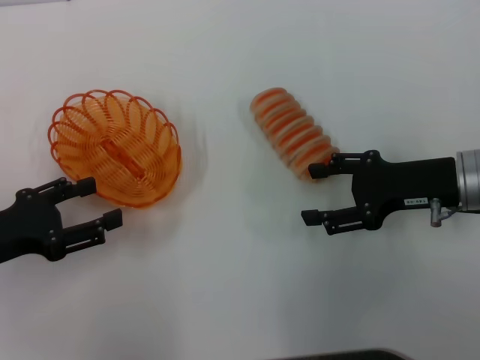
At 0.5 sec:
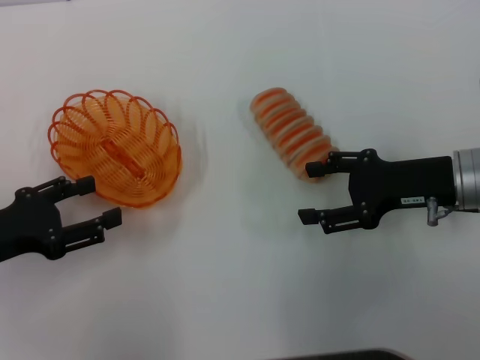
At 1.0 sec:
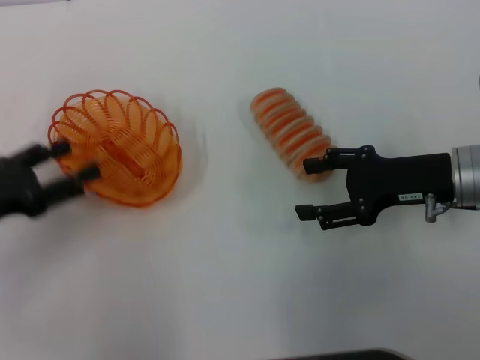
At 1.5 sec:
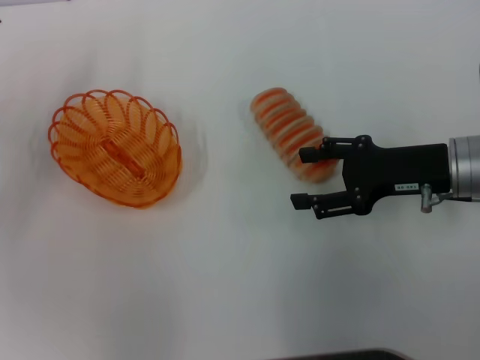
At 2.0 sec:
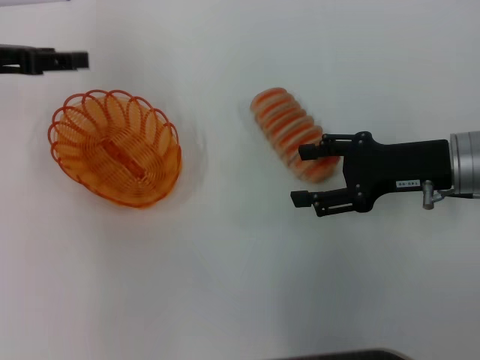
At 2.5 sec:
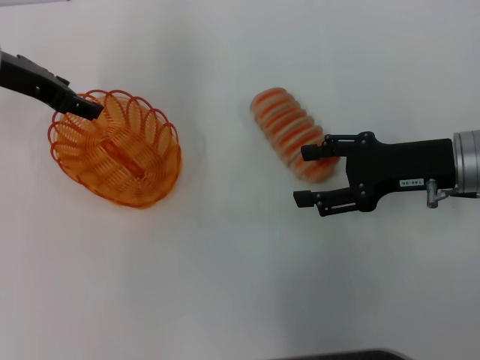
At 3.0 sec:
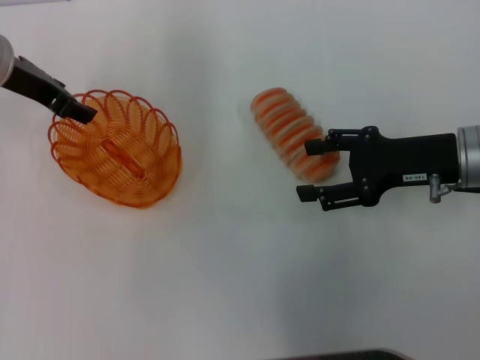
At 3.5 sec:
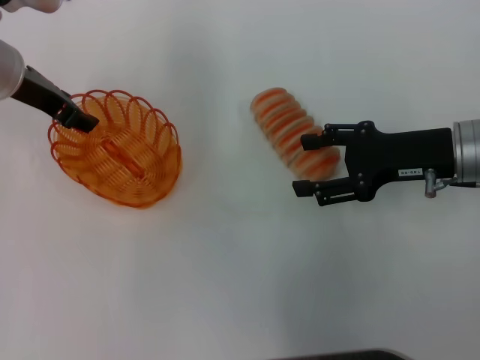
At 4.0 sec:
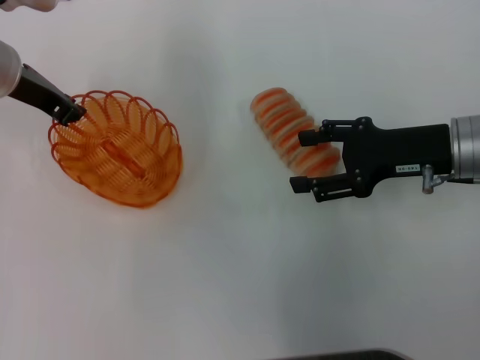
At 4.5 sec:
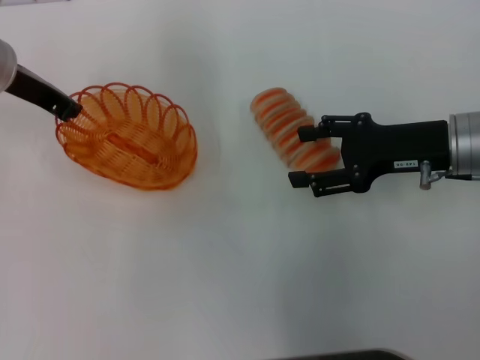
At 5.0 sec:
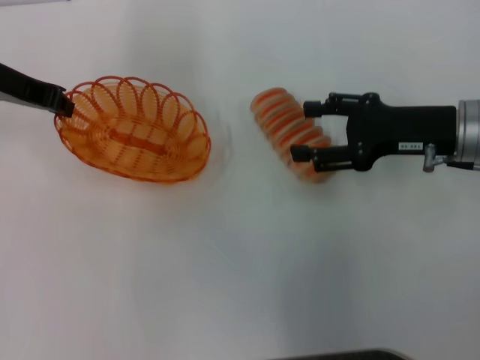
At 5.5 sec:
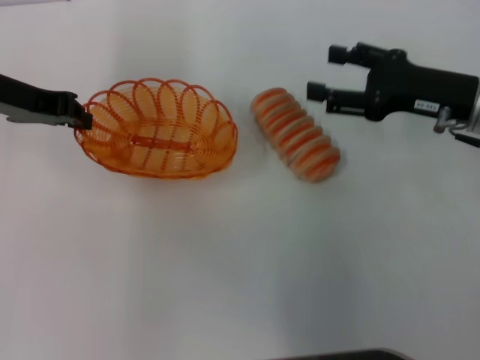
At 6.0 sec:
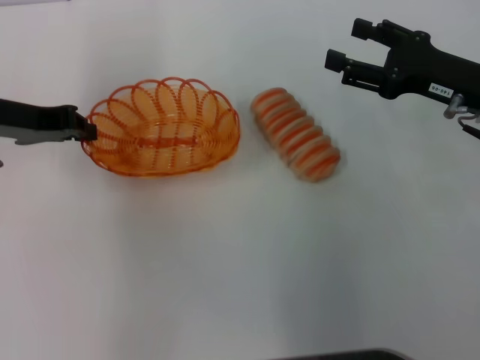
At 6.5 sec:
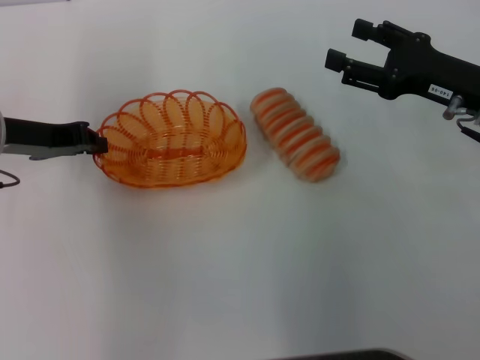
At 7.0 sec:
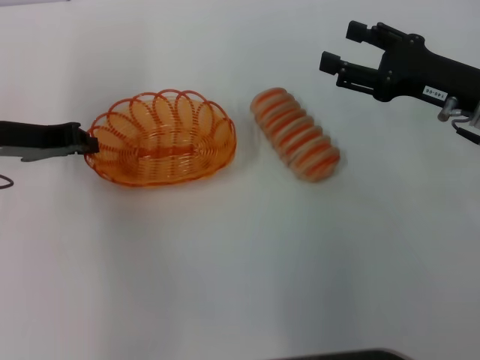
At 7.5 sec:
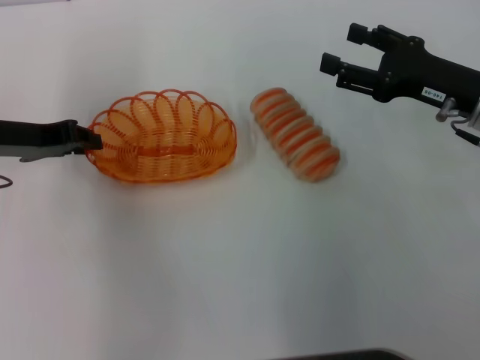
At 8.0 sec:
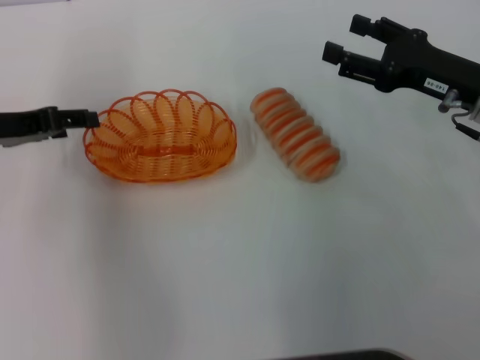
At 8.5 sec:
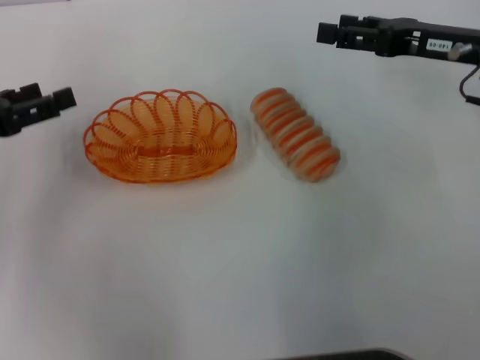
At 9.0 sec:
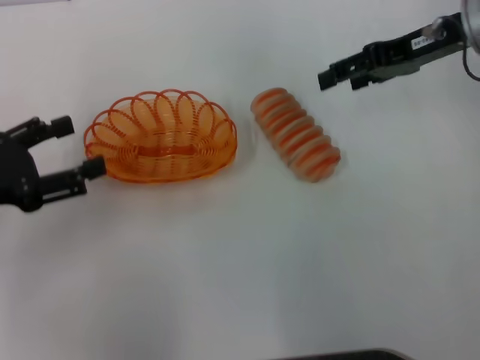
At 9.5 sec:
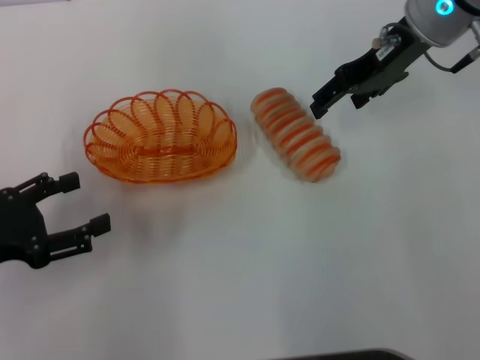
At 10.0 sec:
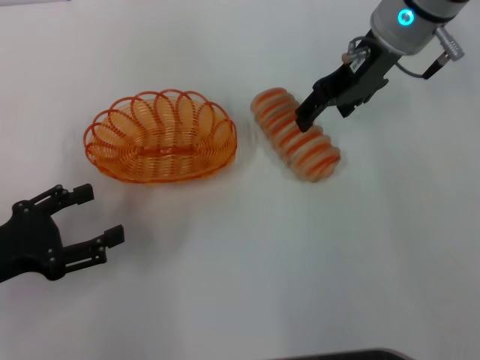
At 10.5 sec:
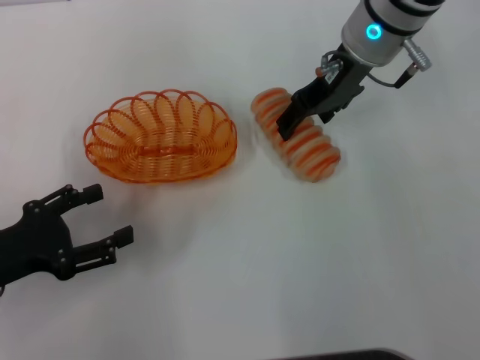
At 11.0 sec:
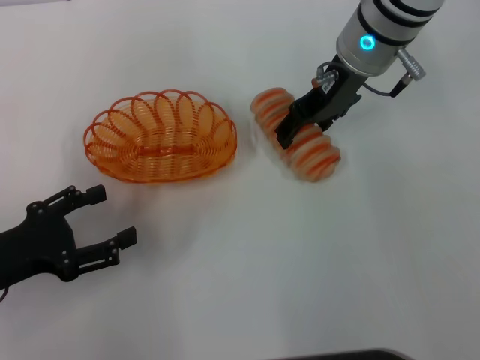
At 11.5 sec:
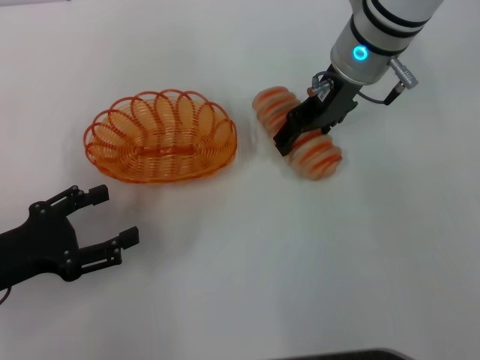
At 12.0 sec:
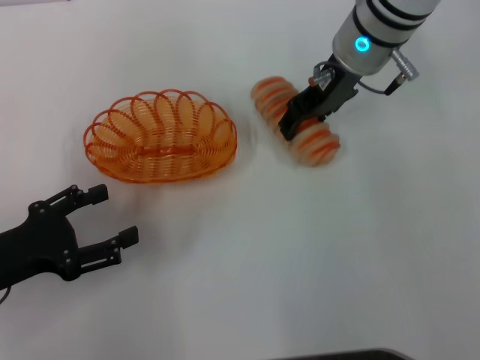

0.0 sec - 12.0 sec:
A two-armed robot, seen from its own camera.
Step, 0.0 sec - 4.5 sec: Pick up the basket with the left gripper.
Step, 5.0 sec - 8.0 sec: Place the basket in the center of view with the left gripper.
Step, 8.5 sec - 11.5 sec: Pick up the long bread with the right gripper.
0.0 sec - 2.0 sec: The left gripper travels forward and upward by approximately 20 cm.
2.0 sec - 4.0 sec: The left gripper is displaced to the right by about 5 cm, and closes.
4.0 sec - 6.0 sec: The left gripper heads backward, covering roughly 5 cm.
6.0 sec - 8.0 sec: The left gripper opens.
8.0 sec - 10.0 sec: The left gripper moves backward and downward, some 15 cm, and opens up. Meanwhile the right gripper is displaced to the left, forward and upward by about 15 cm.
10.0 sec - 12.0 sec: The grippers make only small movements.

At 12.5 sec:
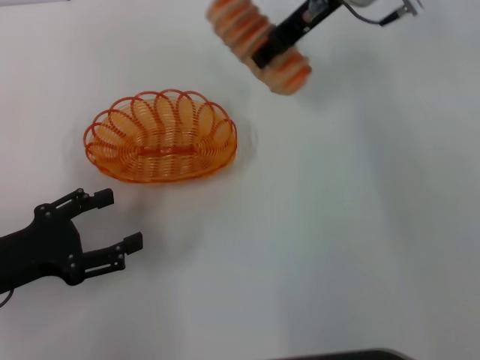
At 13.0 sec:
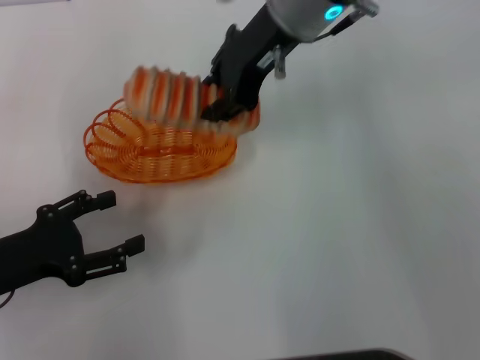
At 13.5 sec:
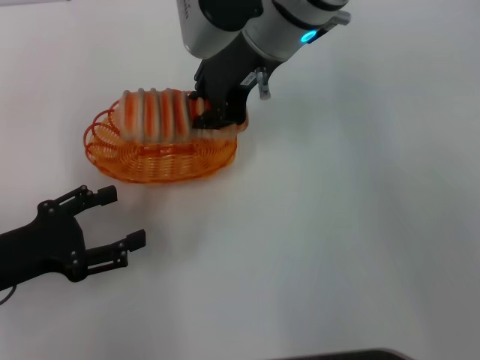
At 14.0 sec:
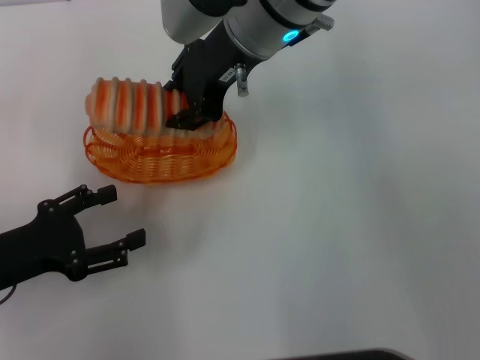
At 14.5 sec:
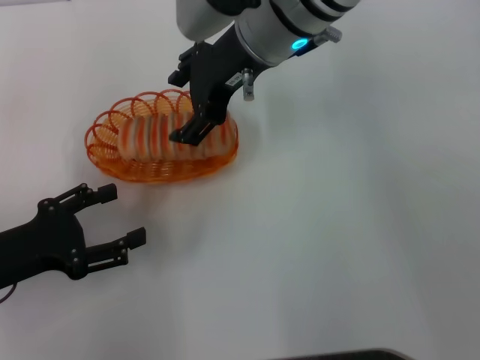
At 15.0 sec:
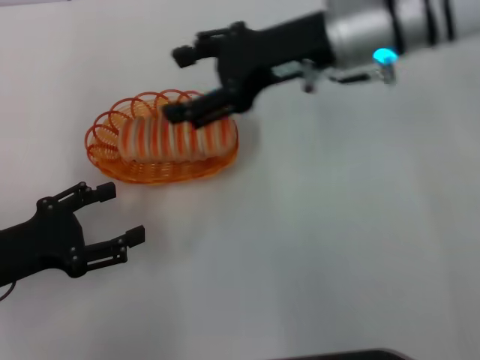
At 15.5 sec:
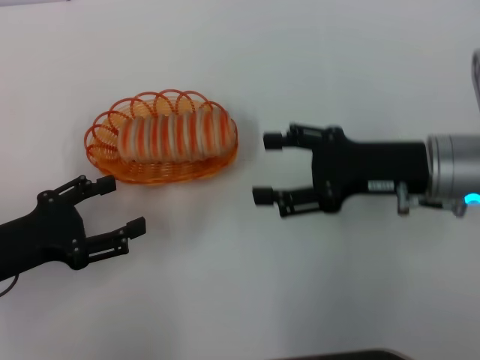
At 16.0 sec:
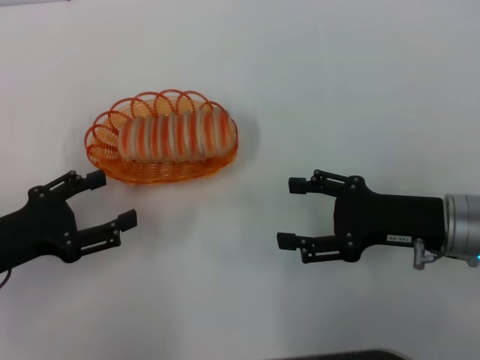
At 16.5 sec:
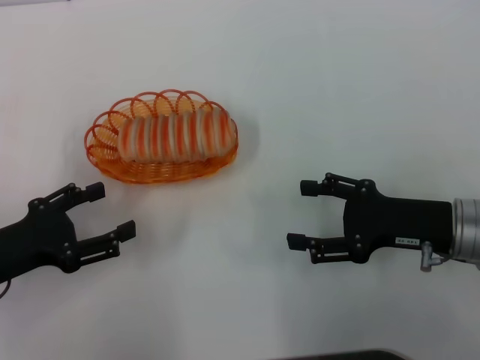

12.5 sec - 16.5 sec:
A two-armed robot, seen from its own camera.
Step, 12.5 sec - 14.5 sec: Place the long bread into the basket with the right gripper.
12.5 sec - 14.5 sec: The right gripper heads to the left, covering roughly 5 cm.
14.5 sec - 16.5 sec: The right gripper goes roughly 30 cm to the right, backward and downward, and opens its fingers.
